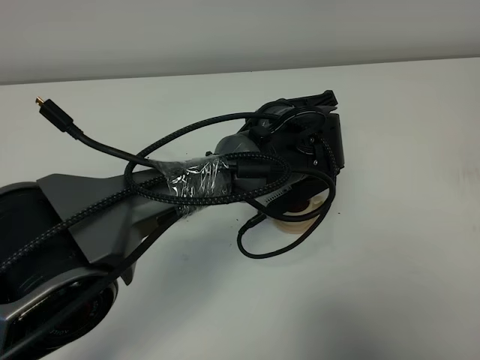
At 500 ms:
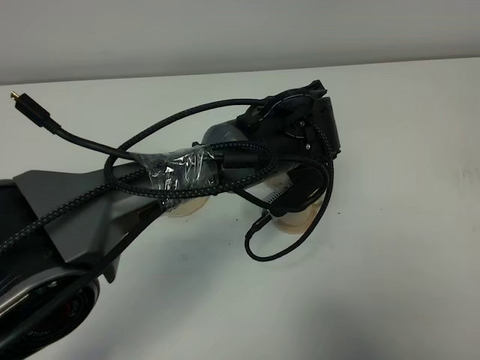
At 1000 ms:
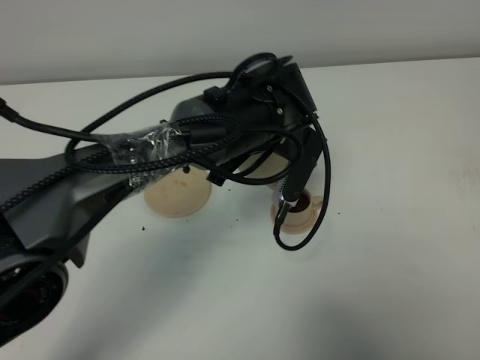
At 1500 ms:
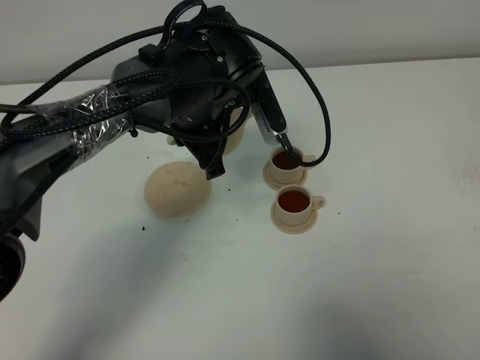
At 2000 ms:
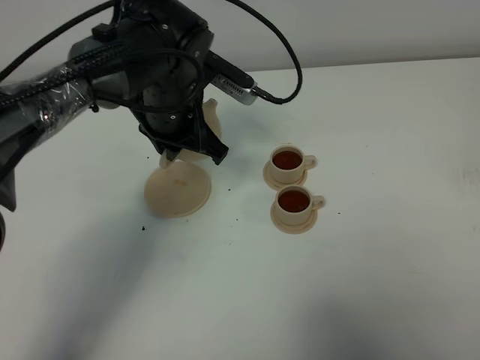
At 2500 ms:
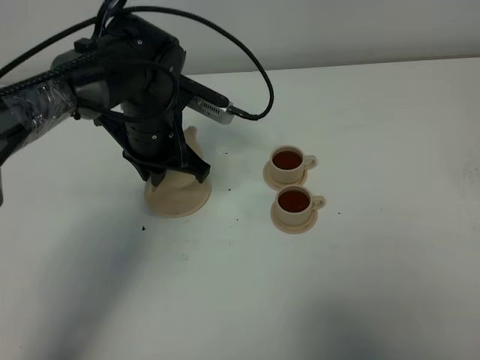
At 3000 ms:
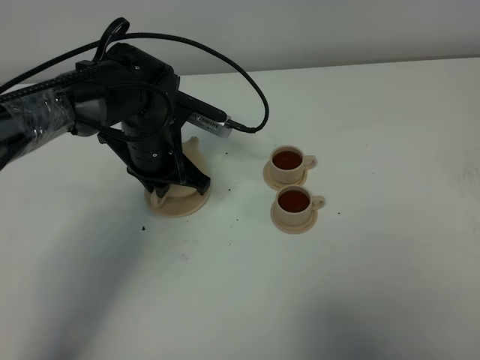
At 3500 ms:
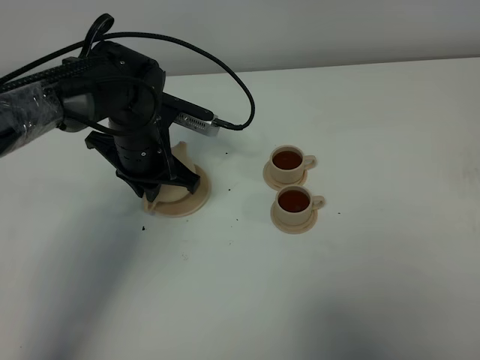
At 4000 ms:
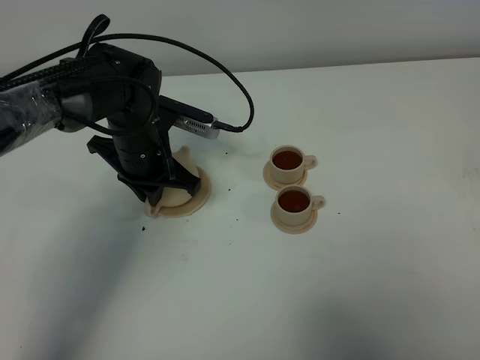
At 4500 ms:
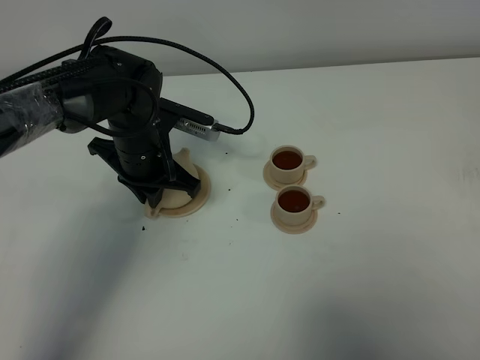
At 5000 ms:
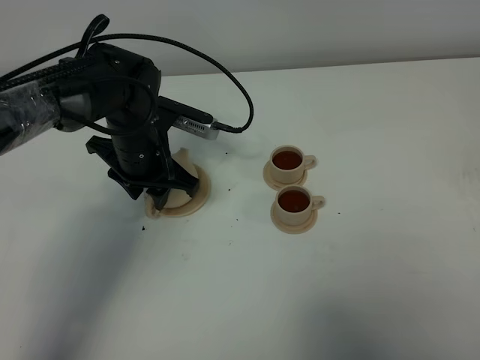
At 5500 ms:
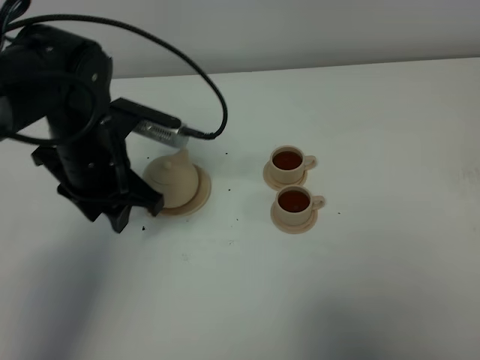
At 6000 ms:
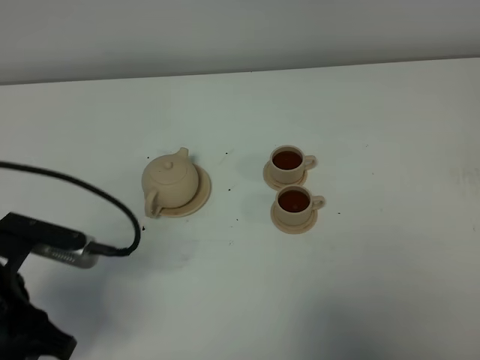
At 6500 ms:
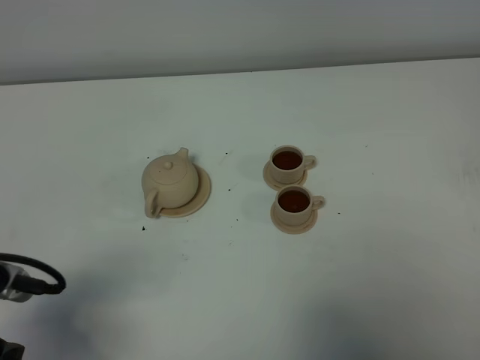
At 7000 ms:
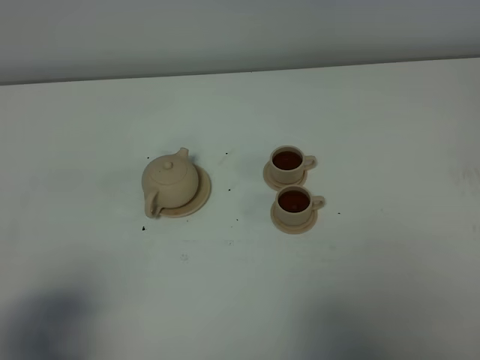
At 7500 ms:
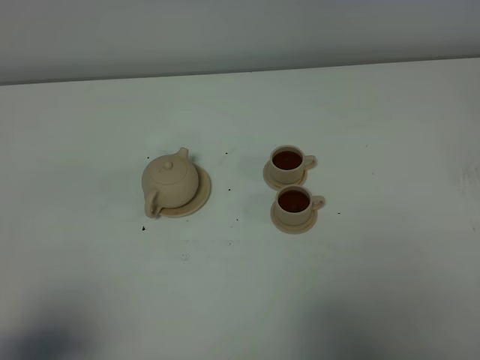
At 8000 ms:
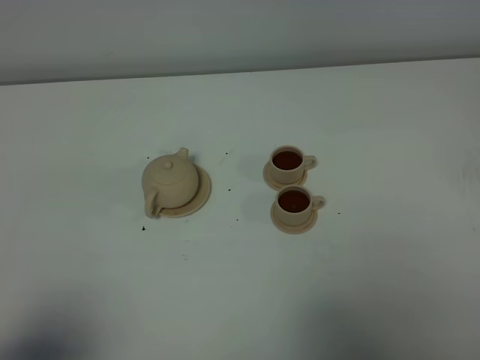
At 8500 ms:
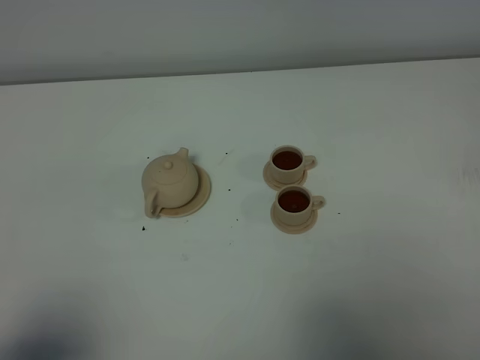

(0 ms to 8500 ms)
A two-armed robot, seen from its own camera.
Task of the whole recording: grasp the brown teapot and pour the tea into the two brown teacups one by one, put the brown teapot back in its original place.
0 ms - 2000 ms: The left gripper moves to the left, some 15 cm.
2000 ms - 4000 ms: The left gripper travels downward and to the left by approximately 10 cm.
4000 ms - 6500 ms: The left gripper is displaced backward and to the left by approximately 30 cm, and opens.
6500 ms - 8500 ms: The left gripper goes some 10 cm backward.

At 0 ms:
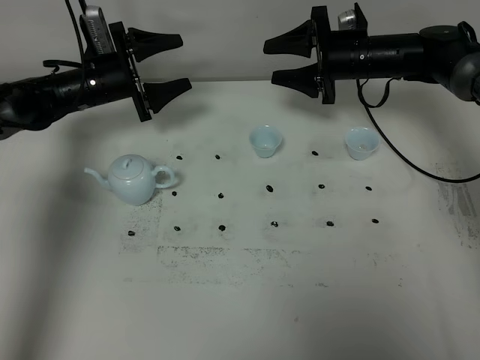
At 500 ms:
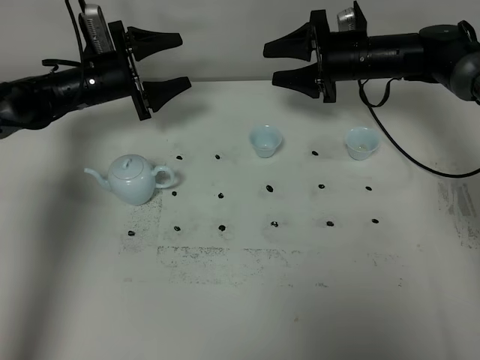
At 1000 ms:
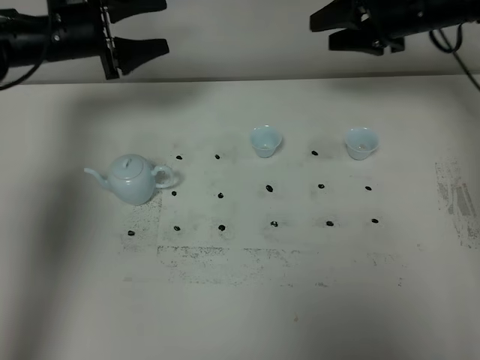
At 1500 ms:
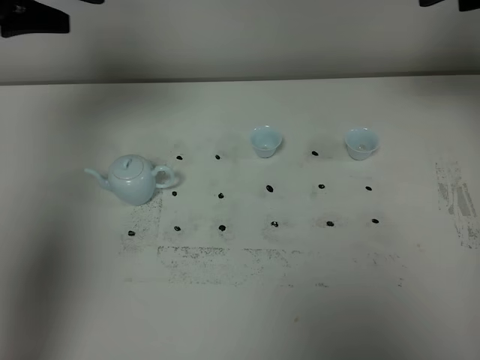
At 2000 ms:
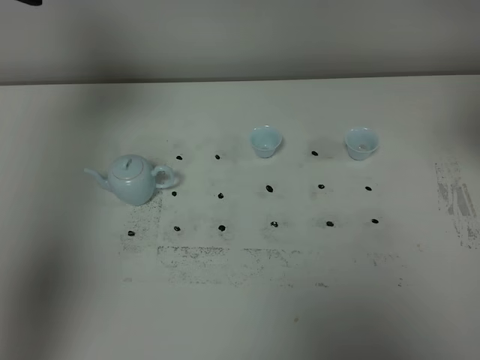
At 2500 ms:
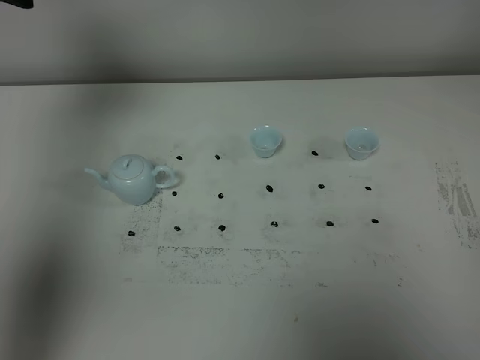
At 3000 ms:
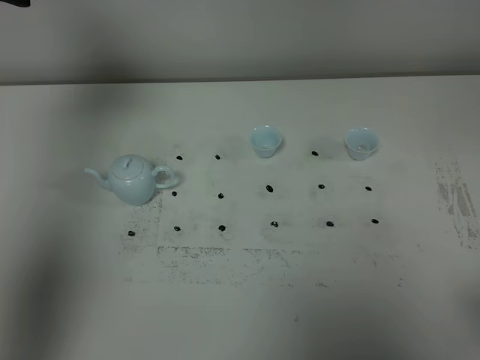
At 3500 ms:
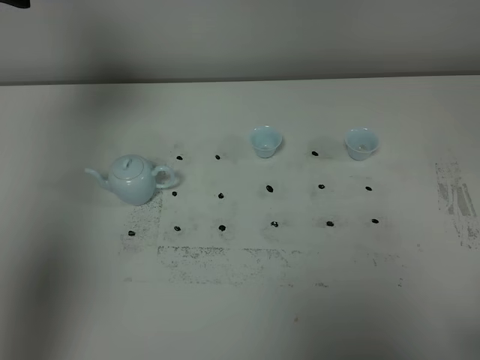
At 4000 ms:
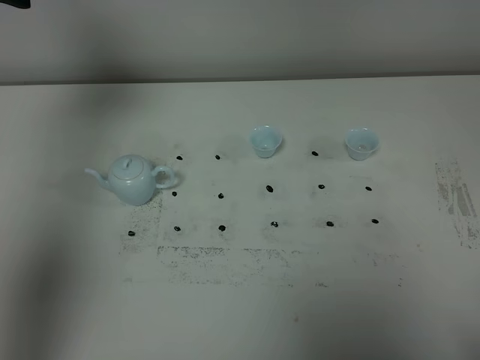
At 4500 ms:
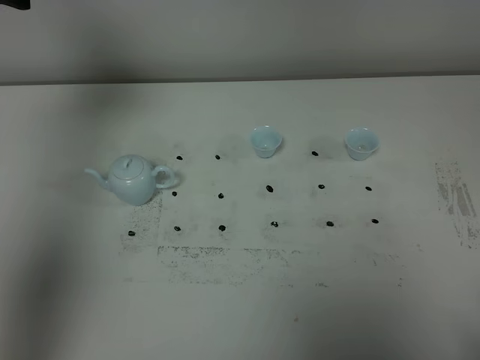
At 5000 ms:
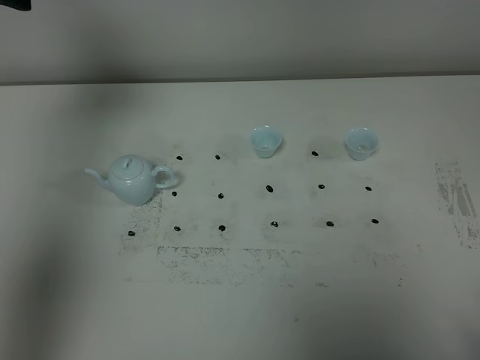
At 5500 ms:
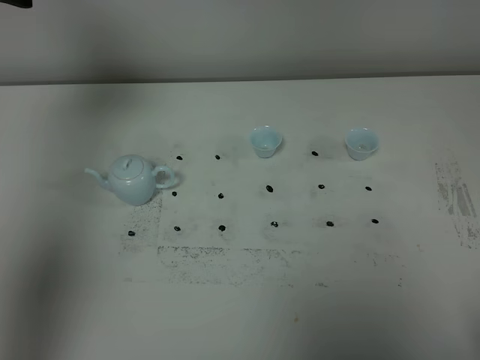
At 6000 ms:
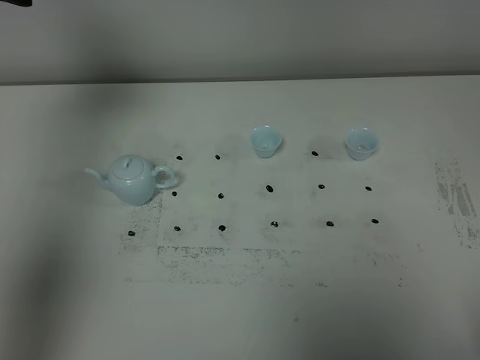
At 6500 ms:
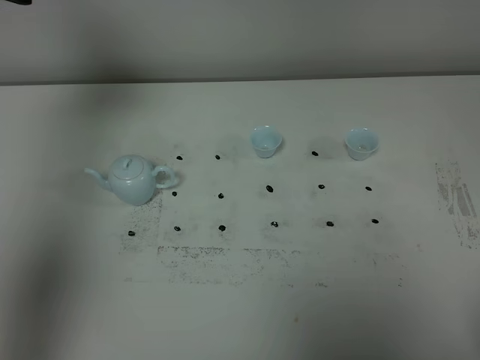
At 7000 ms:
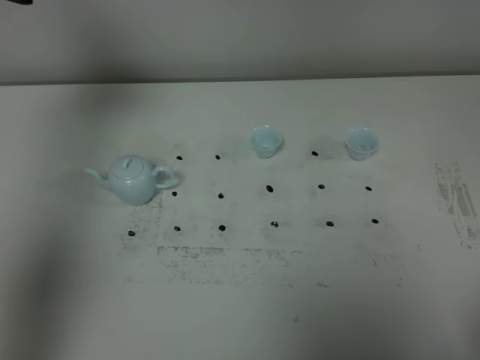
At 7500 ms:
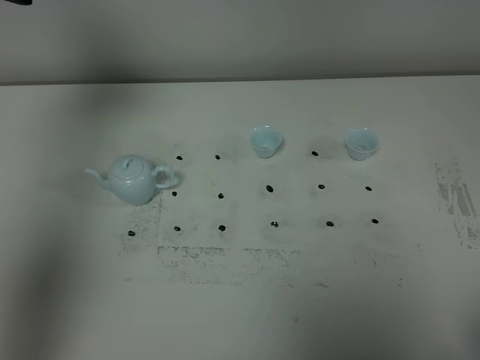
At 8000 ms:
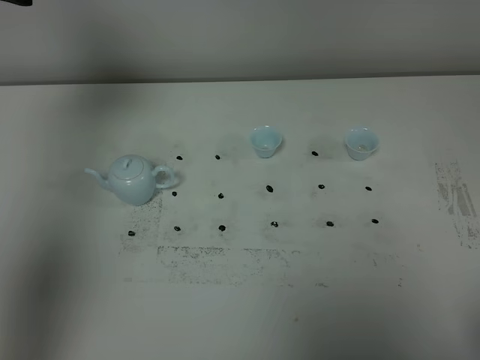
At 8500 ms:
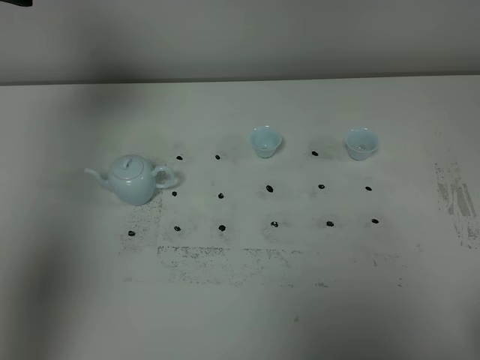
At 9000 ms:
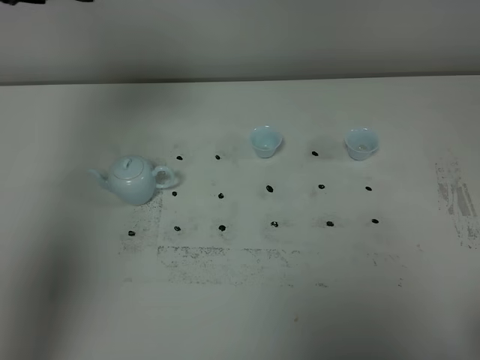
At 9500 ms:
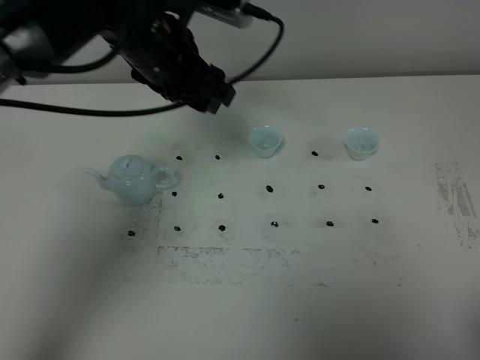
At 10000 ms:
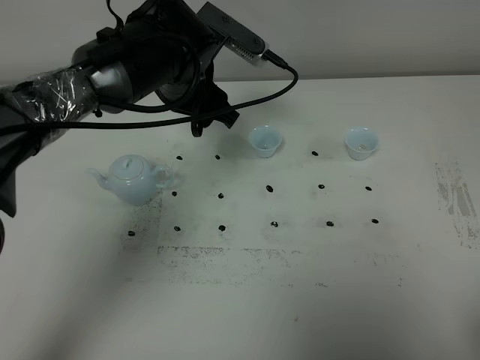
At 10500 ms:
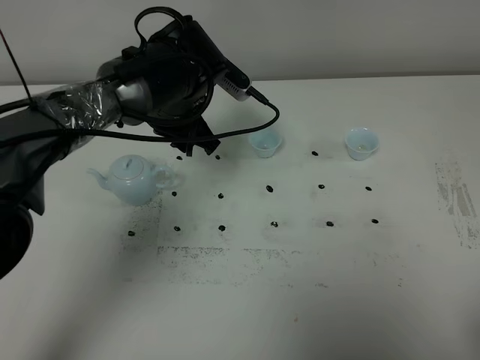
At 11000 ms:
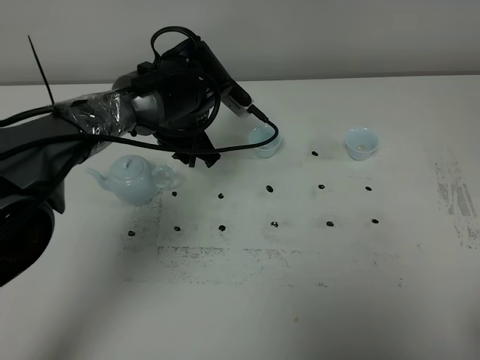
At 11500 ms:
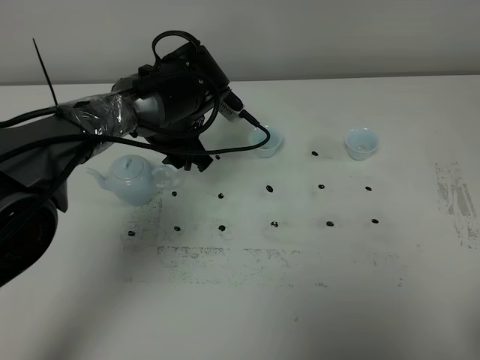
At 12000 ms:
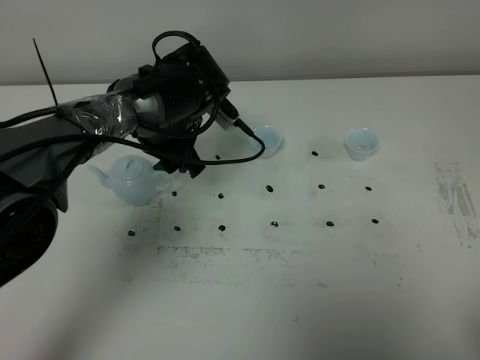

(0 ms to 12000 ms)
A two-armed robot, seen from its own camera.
Task of the whole recording: grasp the blue porcelain teapot and pour the tea into the two blue porcelain teacups one by one, put the blue porcelain teapot back in its original place.
0 ms - 2000 ms: The left gripper heads upward and backward, covering about 30 cm. The right gripper moves backward and upward, about 35 cm.
8000 ms - 10000 ms: The left gripper is displaced to the right and downward by about 30 cm.
10000 ms - 12000 ms: The left gripper heads downward, covering about 5 cm.

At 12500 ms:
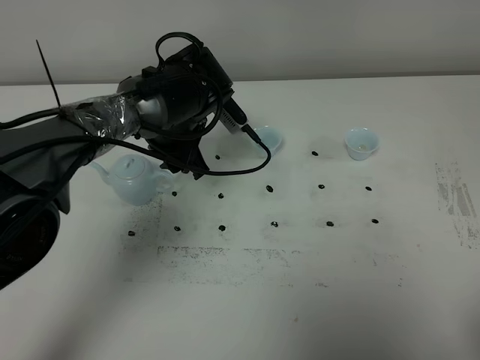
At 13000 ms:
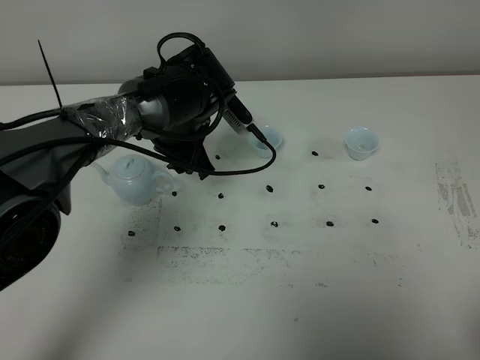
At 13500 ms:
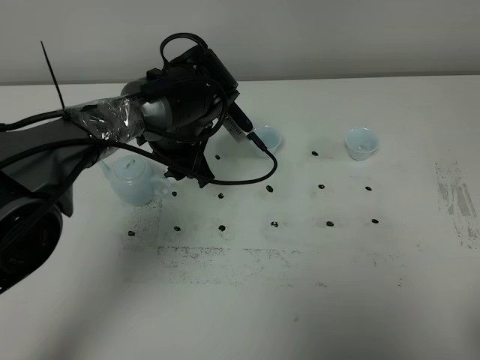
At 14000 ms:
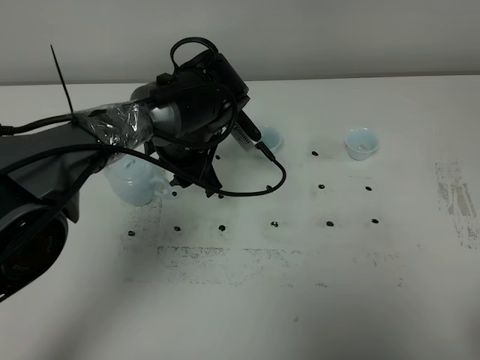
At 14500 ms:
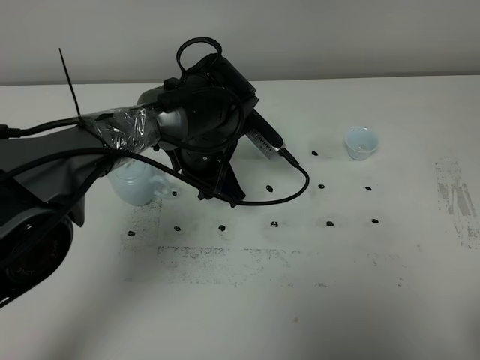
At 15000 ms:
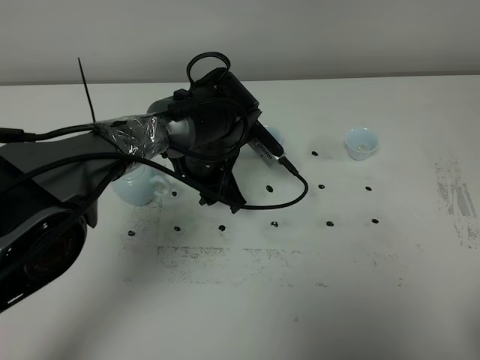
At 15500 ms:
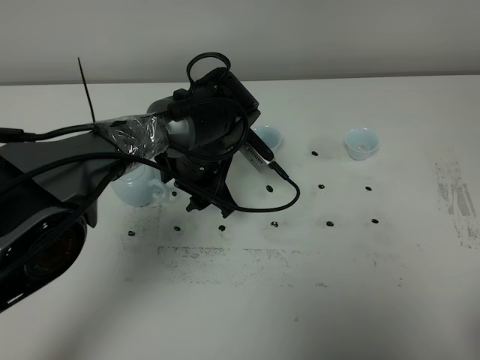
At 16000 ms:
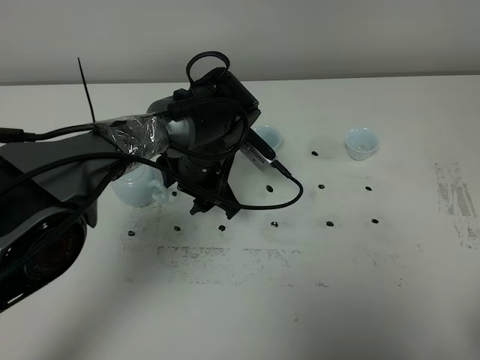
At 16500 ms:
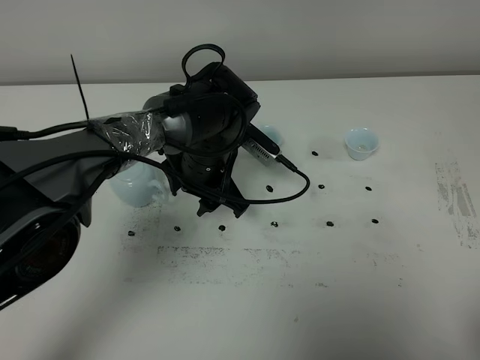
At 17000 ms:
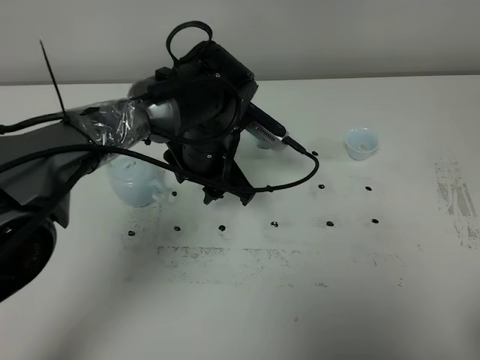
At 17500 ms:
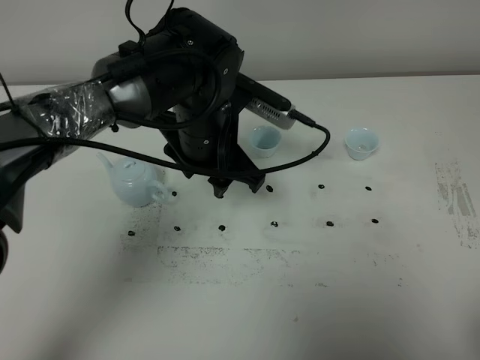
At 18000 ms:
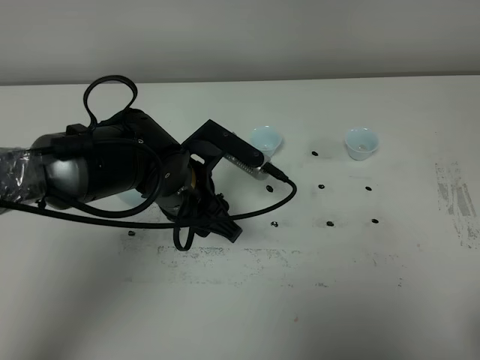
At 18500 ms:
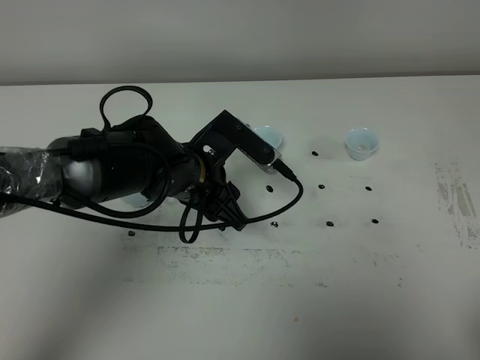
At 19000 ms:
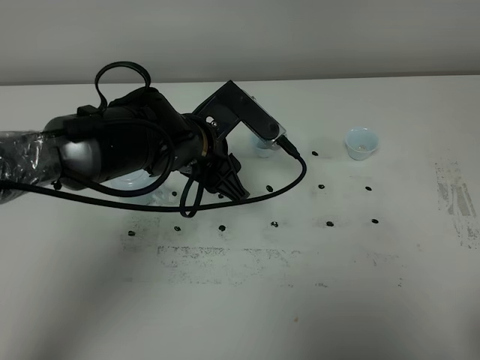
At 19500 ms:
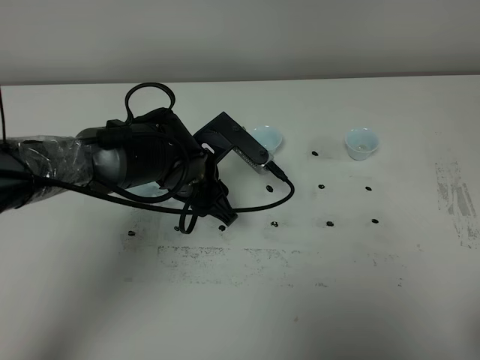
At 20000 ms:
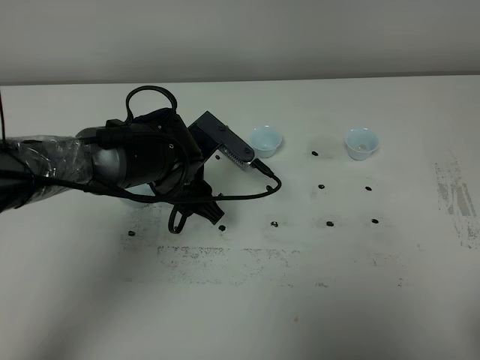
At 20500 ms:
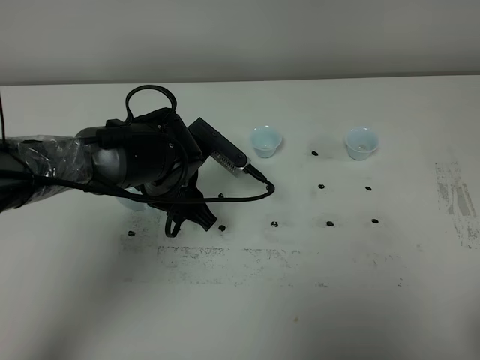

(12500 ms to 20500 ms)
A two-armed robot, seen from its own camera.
Task of the whole recording: grasp the blue porcelain teapot and pour the tea into the two blue porcelain teacups one by one, put the blue porcelain teapot back in its original place.
12500 ms - 16500 ms: The grippers move only a little.
16500 ms - 18500 ms: The left gripper travels backward by approximately 5 cm.
